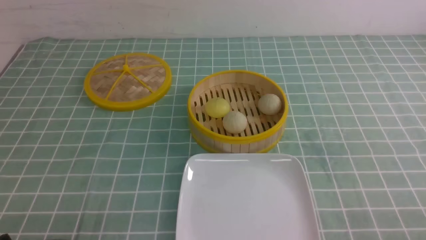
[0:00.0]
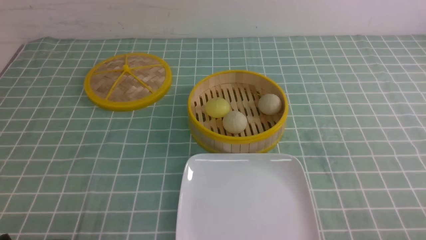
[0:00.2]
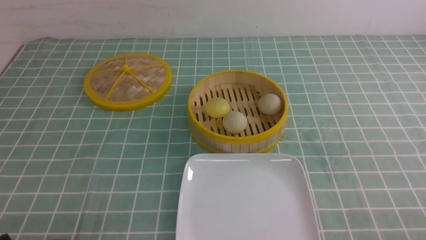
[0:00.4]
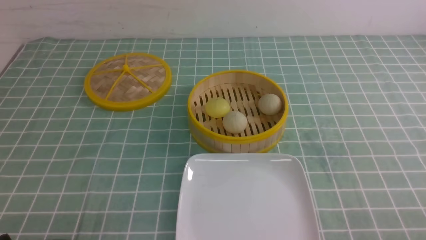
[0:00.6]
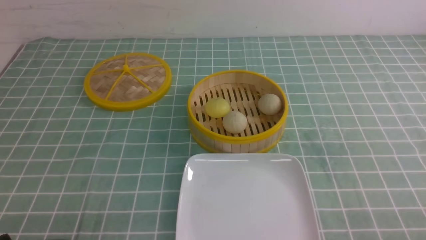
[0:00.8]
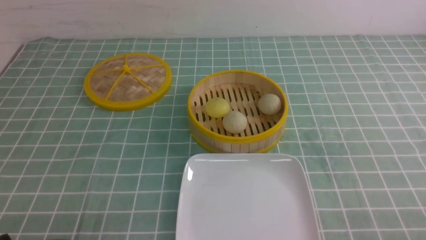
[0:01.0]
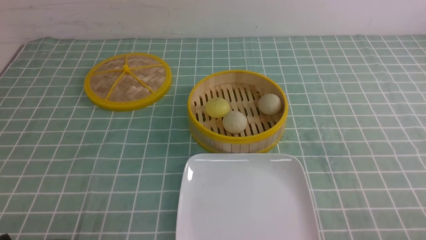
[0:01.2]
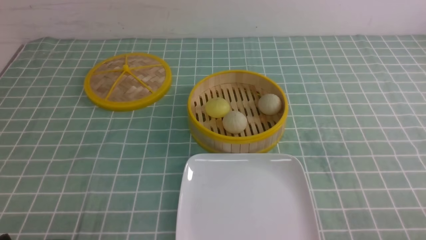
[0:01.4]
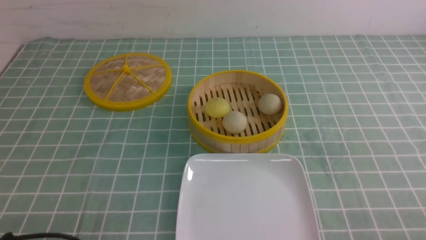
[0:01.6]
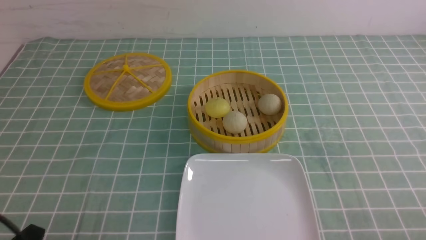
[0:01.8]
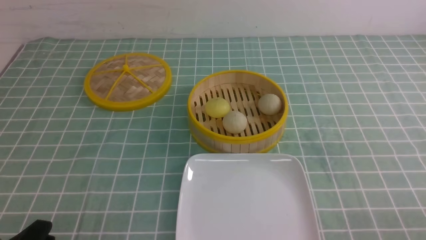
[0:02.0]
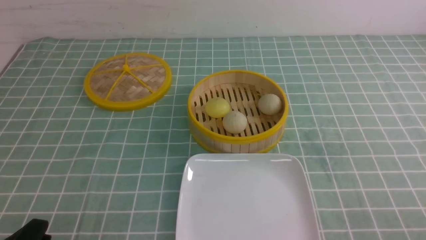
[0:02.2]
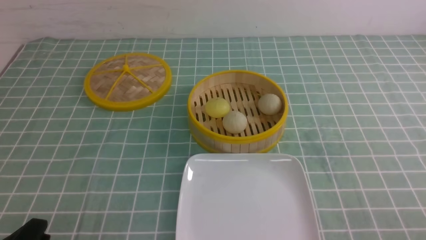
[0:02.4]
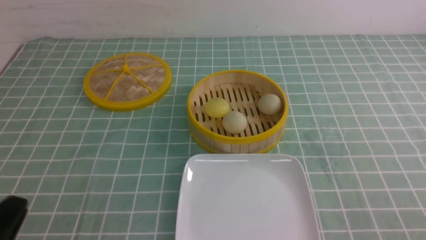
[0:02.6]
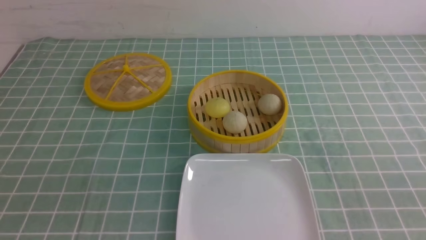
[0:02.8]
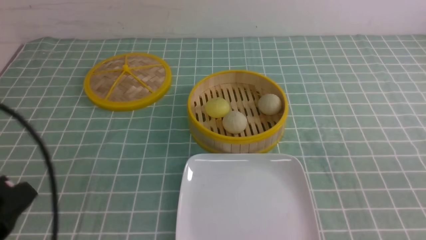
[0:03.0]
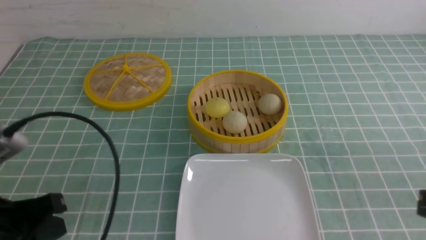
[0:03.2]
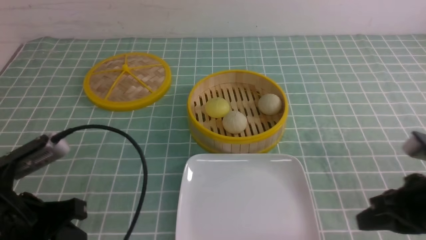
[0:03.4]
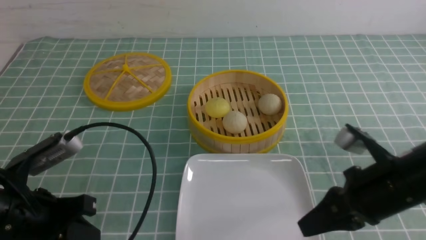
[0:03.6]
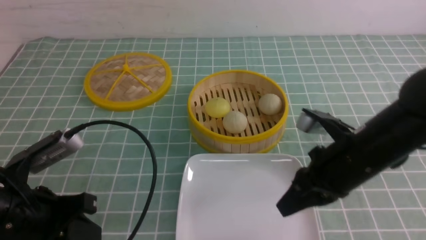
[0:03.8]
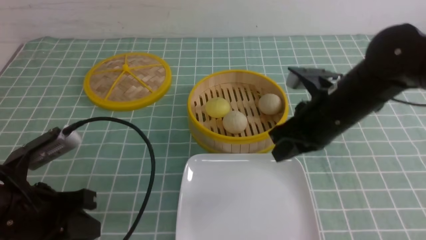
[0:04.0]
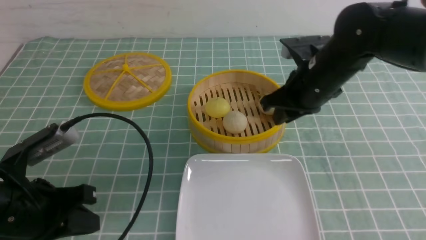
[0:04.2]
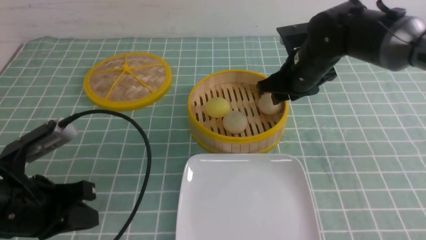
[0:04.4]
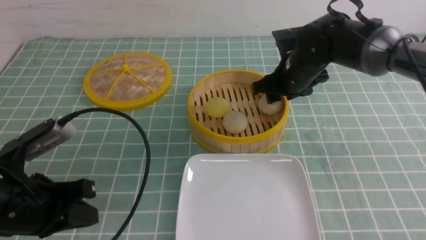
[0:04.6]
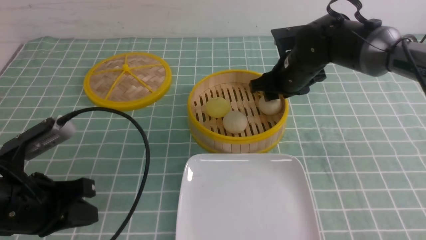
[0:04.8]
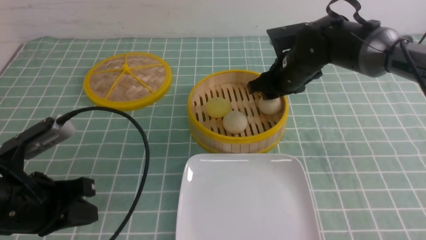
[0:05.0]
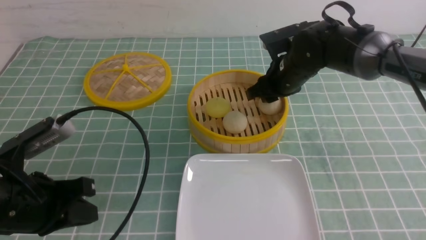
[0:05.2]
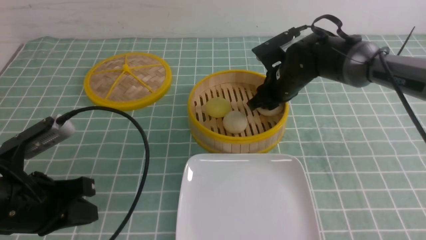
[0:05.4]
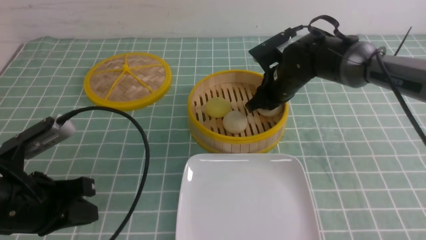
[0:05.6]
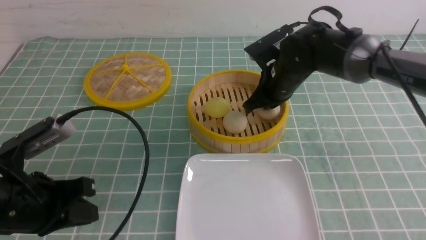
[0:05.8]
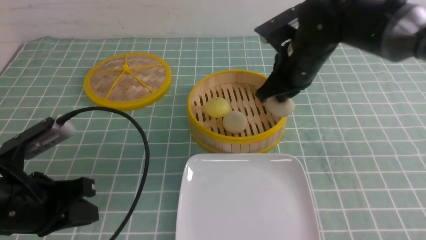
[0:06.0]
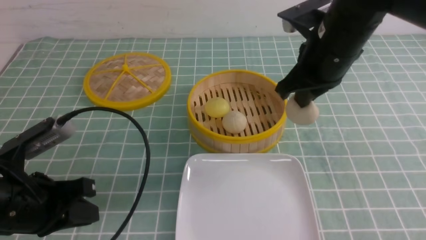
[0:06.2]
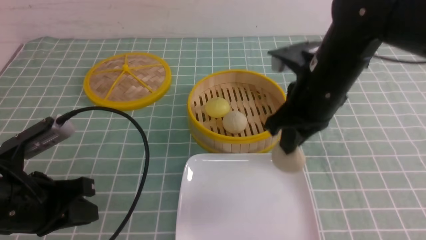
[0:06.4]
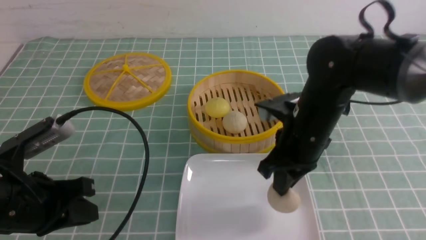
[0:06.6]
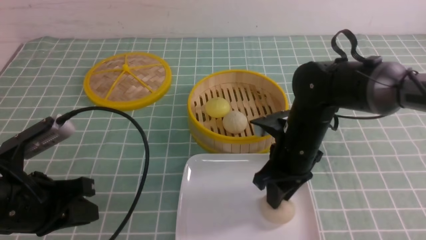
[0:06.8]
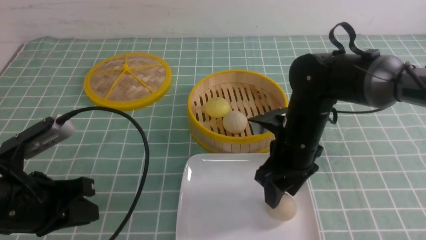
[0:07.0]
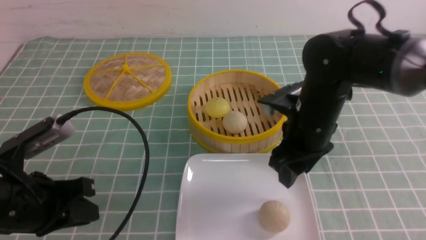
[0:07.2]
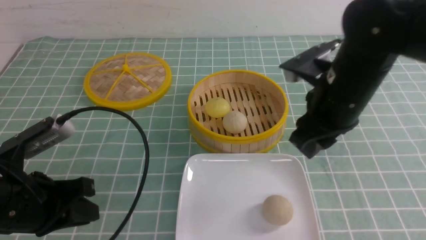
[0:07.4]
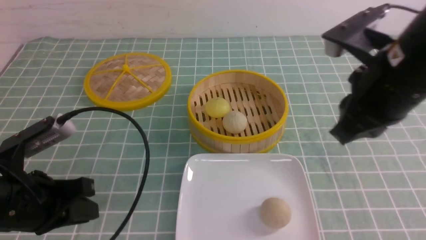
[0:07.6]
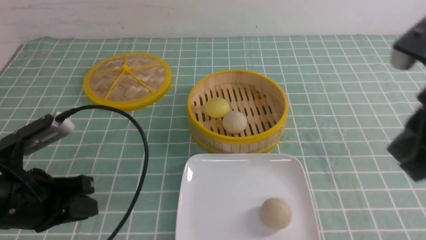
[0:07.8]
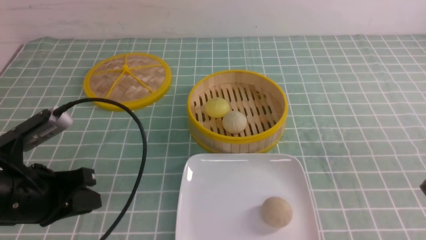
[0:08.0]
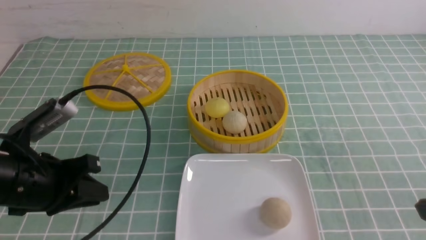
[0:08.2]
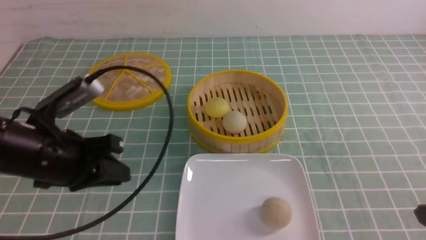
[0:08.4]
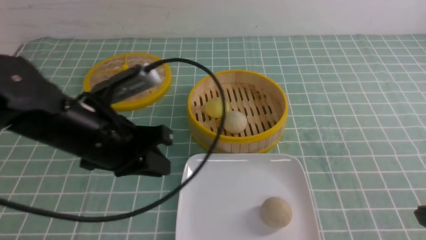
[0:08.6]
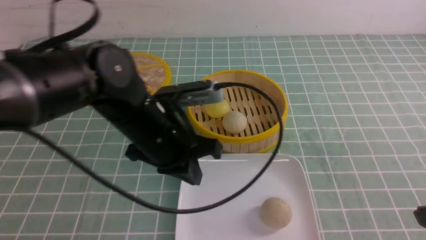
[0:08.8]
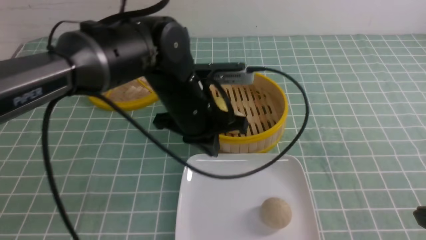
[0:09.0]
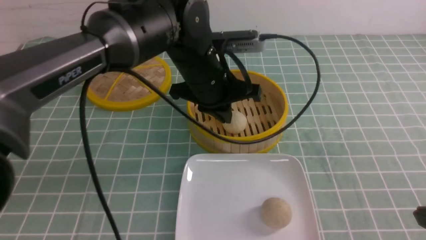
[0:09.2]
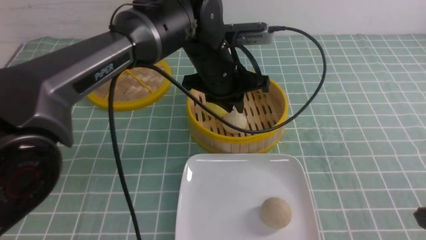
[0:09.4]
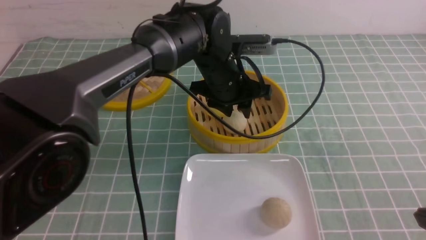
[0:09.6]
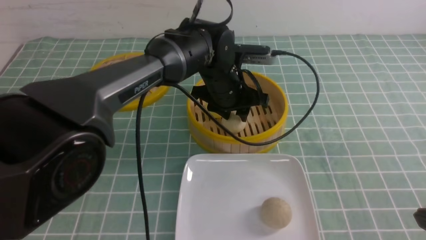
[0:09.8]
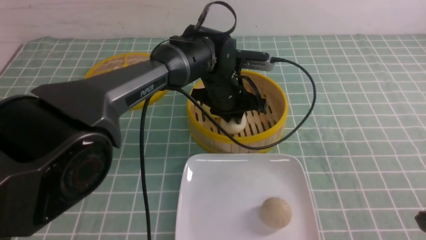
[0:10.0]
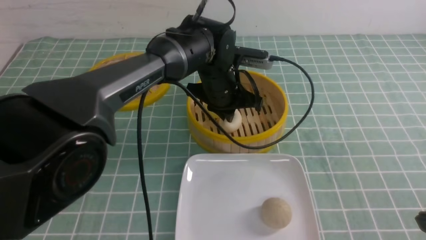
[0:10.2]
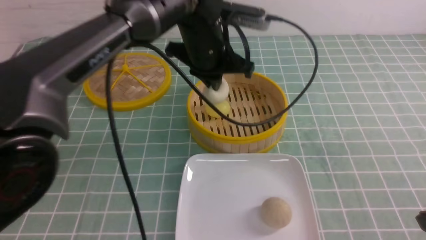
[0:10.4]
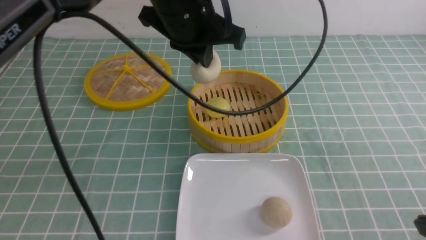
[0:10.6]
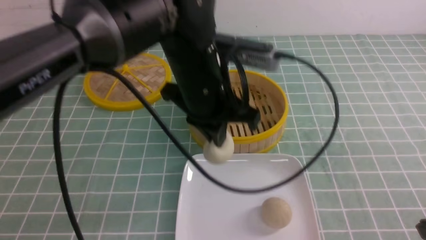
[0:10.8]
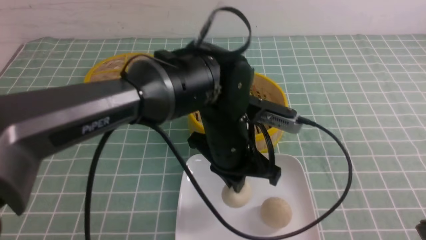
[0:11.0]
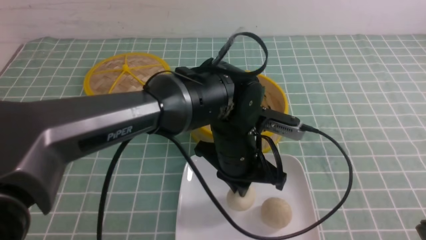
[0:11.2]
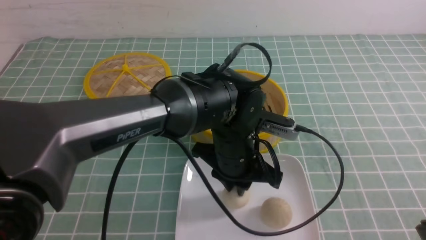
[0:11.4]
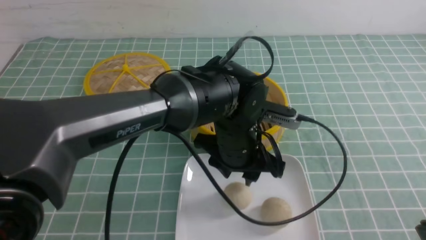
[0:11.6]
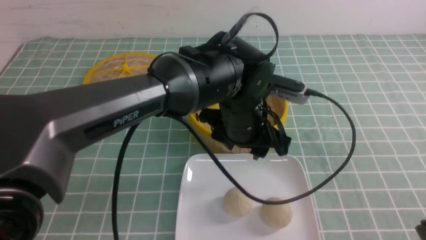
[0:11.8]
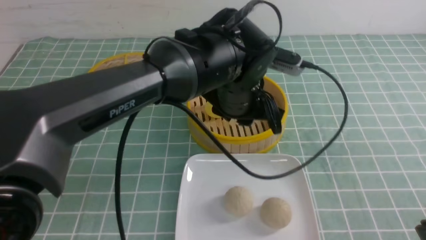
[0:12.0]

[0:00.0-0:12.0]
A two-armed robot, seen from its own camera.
Step, 0.0 to 5.6 s: use the right arm to grab the steamed stuffed bun that is closest to it.
Step, 5.8 to 6.8 s: use the right arm to put the steamed stuffed bun into the plate.
Step, 7.0 to 10.2 s: use the left arm to grab the steamed stuffed bun that is closest to it.
Step, 10.4 to 11.4 s: use the left arm to put the steamed stuffed bun into the plate.
1.6 to 3.0 s: The left gripper moves upward, some 10 cm, and closes its fingers.
3.0 to 4.4 s: The right gripper heads forward and to the left, covering about 35 cm, and opens up; the left gripper is displaced forward by roughly 10 cm.
4.4 to 6.0 s: The right gripper changes place by about 5 cm, and closes its fingers.
6.0 to 7.6 s: The right gripper heads backward, upward and to the right, covering approximately 15 cm, and opens, then closes once more.
7.6 to 9.0 s: The right gripper shifts roughly 20 cm backward, to the right and downward, while the left gripper moves to the right and forward, roughly 25 cm.
9.0 to 10.4 s: The left gripper shifts roughly 10 cm forward and upward, and opens, then closes again.
10.4 to 12.0 s: The left gripper opens.

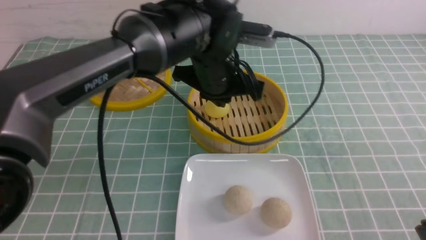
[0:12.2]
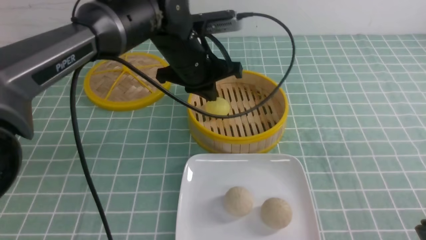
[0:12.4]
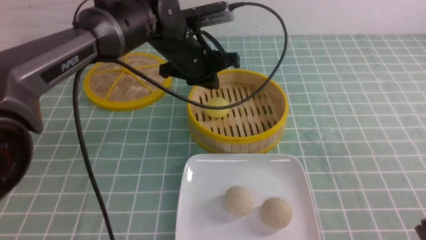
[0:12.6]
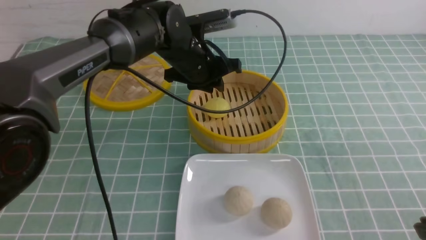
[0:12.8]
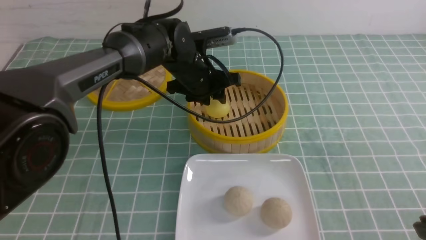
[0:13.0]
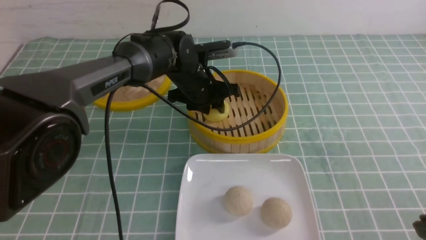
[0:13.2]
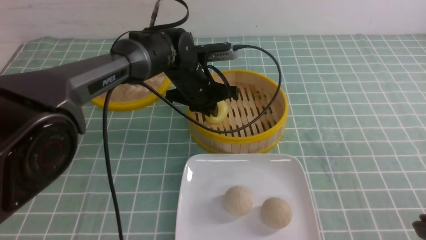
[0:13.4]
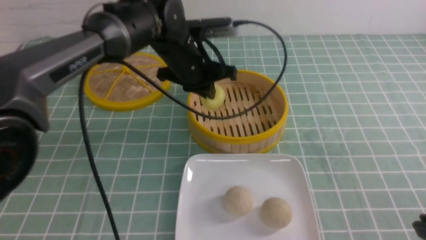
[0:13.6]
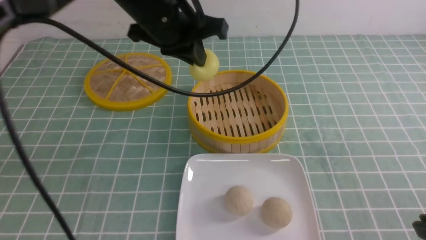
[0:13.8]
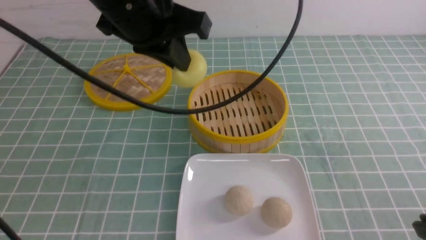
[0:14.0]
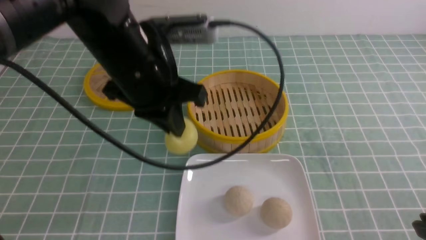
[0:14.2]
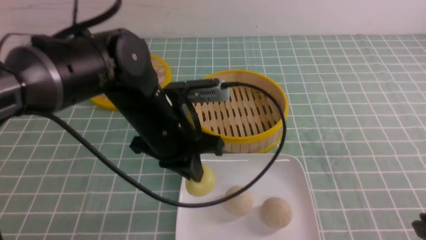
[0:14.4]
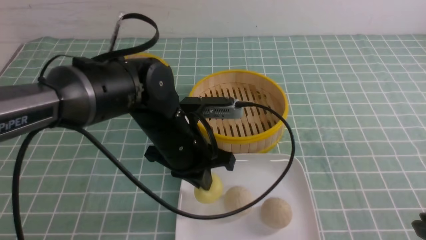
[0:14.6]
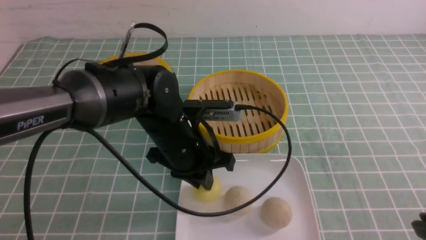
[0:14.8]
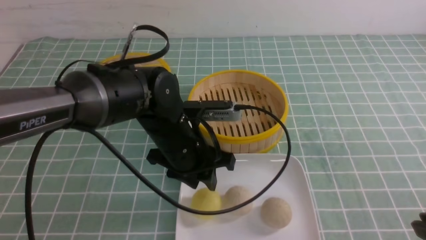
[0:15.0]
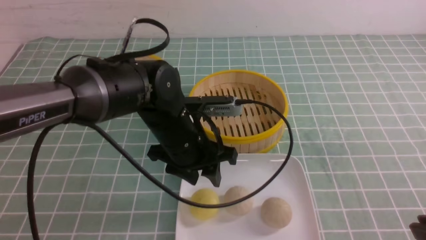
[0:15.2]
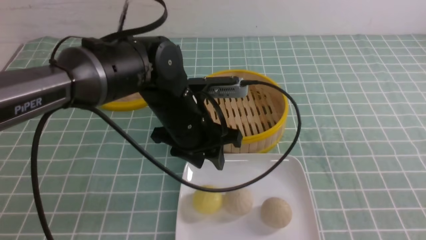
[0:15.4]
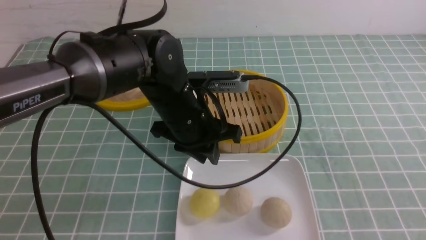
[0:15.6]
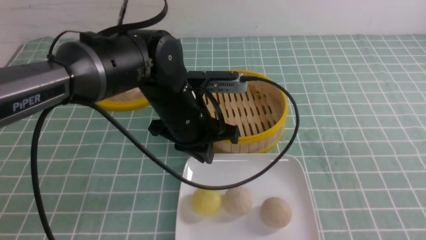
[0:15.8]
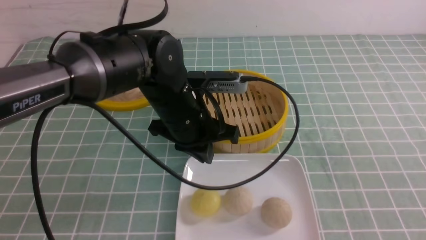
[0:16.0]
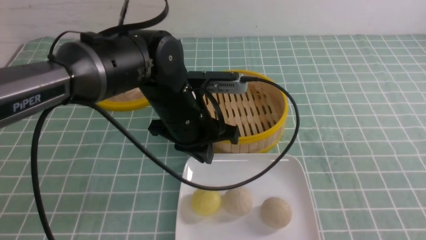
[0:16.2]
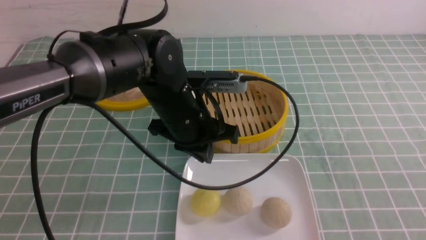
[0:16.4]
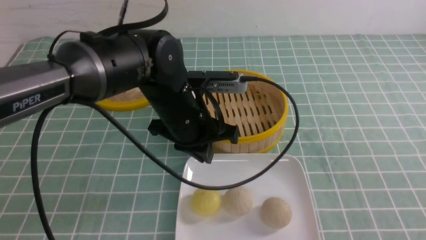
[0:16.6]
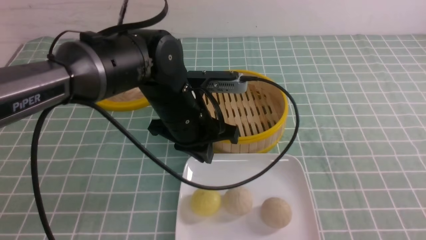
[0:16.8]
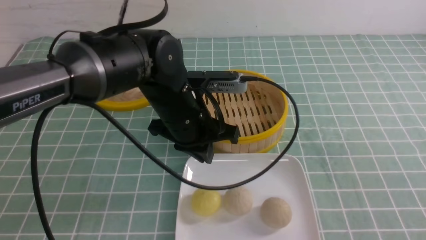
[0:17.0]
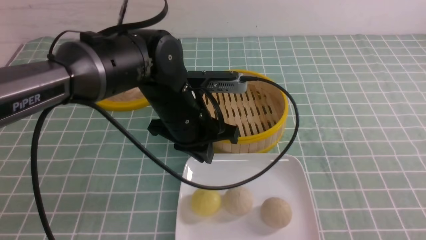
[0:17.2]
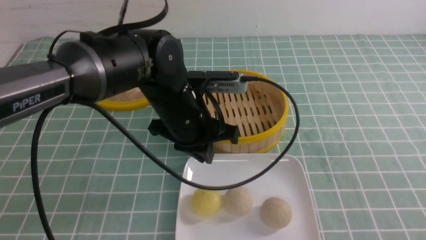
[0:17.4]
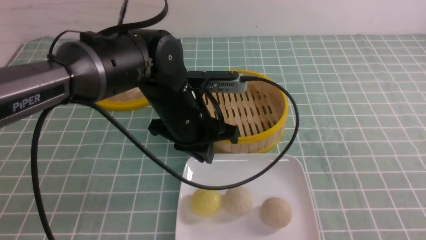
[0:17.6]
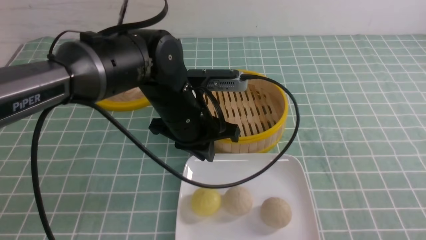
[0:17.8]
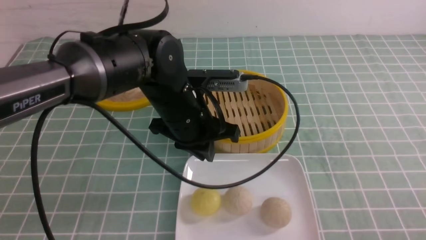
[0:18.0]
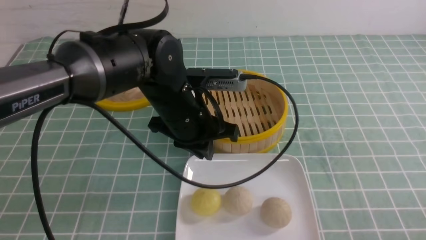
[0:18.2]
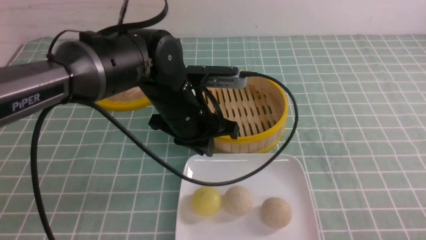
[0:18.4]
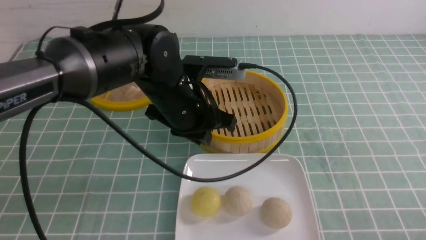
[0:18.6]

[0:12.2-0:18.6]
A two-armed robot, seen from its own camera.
Step, 12.2 to 13.4 s: use the left arm to grab the steamed stuffed bun that is closest to it.
Step, 13.6 to 14.8 s: use the left arm to put the steamed stuffed bun into the plate.
12.2 to 13.8 s: The left gripper shifts roughly 10 cm upward and to the left, and opens, then closes once more.
13.8 to 15.4 s: The left gripper travels downward by approximately 15 cm, and opens its fingers.
15.4 to 17.0 s: The left gripper closes.
17.0 to 18.6 s: The right gripper travels downward by about 10 cm.
